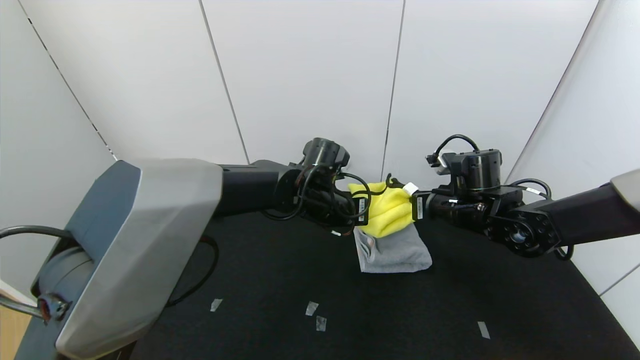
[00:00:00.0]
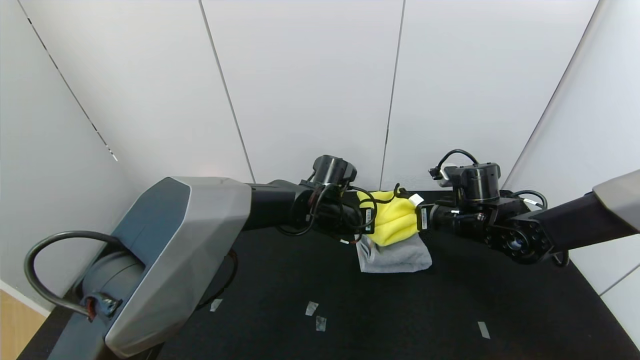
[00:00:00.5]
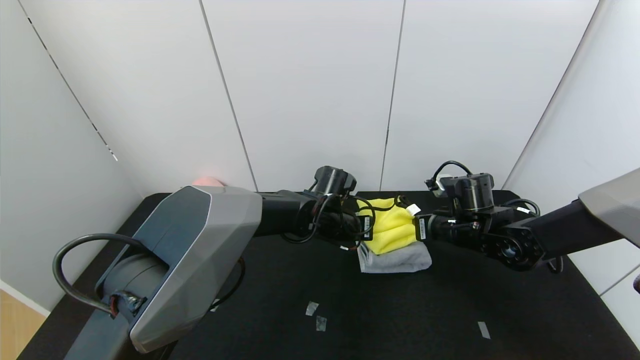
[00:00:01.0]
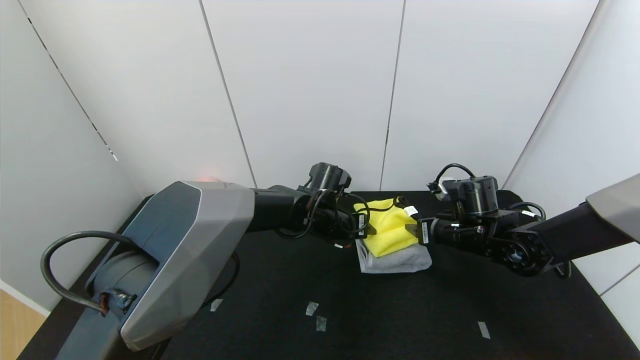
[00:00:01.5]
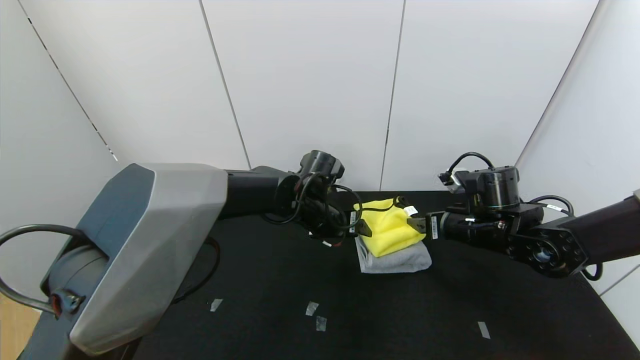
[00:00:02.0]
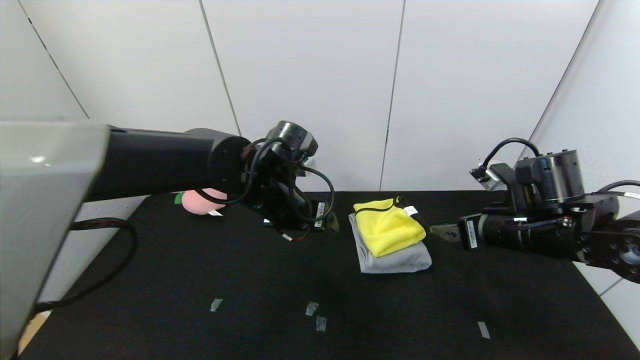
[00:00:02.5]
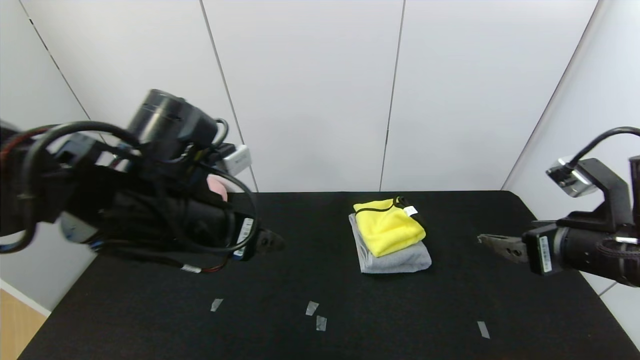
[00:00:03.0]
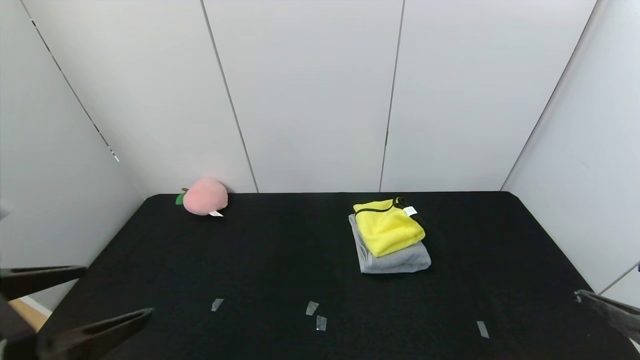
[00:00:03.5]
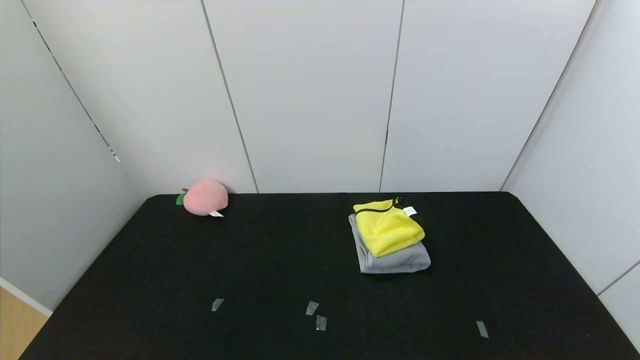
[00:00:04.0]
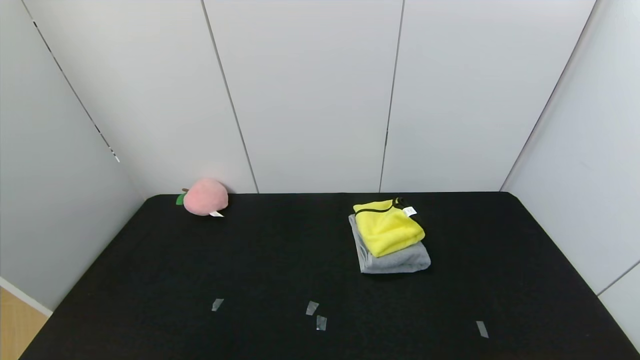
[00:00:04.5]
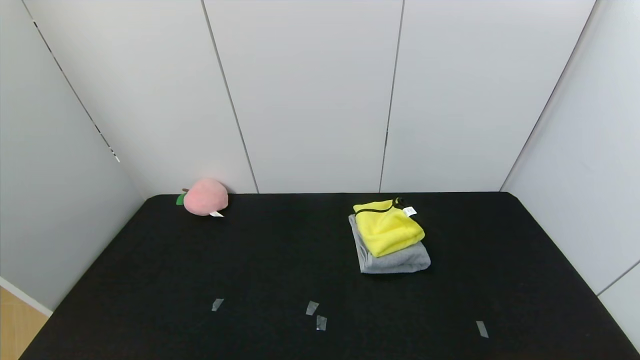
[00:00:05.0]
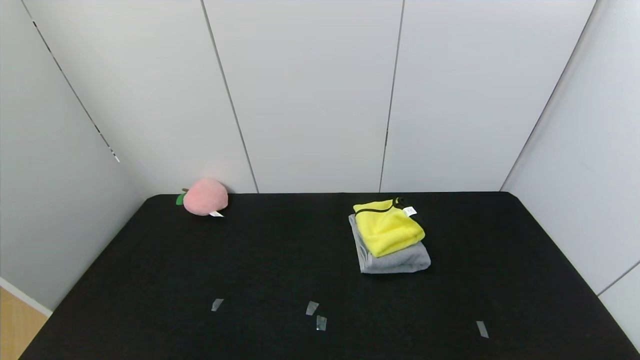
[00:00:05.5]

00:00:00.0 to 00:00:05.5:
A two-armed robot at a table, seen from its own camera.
Task of the whole recording: Use the gripper to fold the yellow towel and grey towel in half twice,then put the yellow towel on the grey towel.
00:00:00.0 to 00:00:02.0: The right gripper opens. Meanwhile the left gripper opens.
00:00:02.0 to 00:00:03.5: The right gripper shifts roughly 25 cm backward, while the left gripper heads backward and to the left, covering approximately 40 cm.
00:00:03.5 to 00:00:05.5: The left gripper moves downward and backward, about 20 cm.
